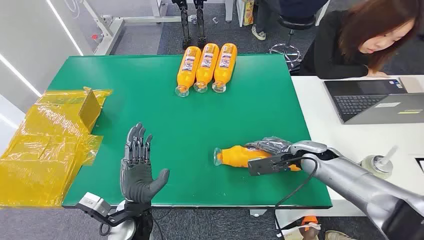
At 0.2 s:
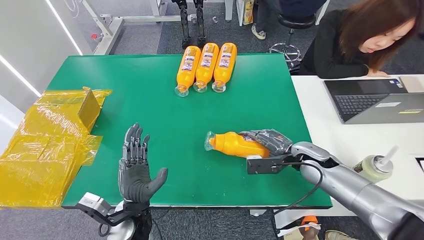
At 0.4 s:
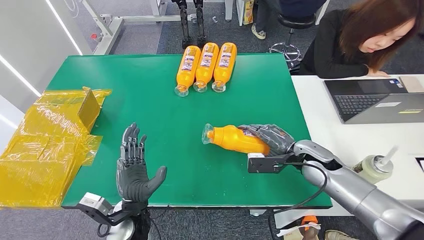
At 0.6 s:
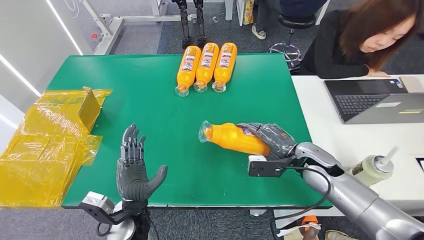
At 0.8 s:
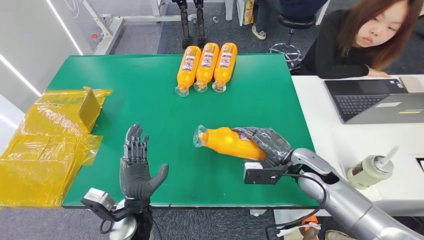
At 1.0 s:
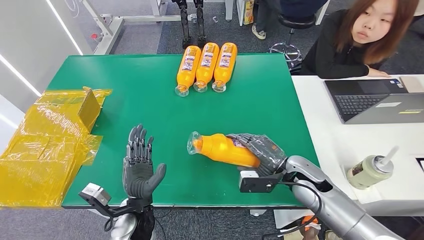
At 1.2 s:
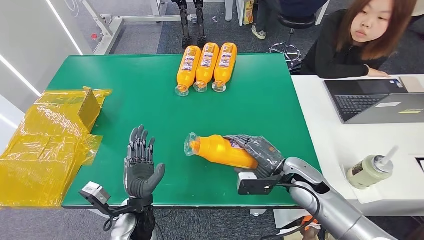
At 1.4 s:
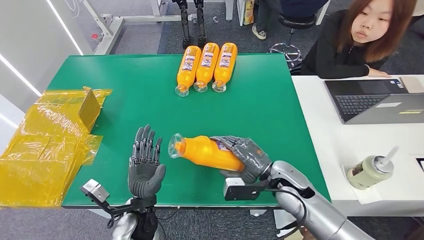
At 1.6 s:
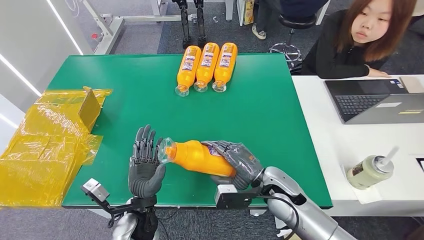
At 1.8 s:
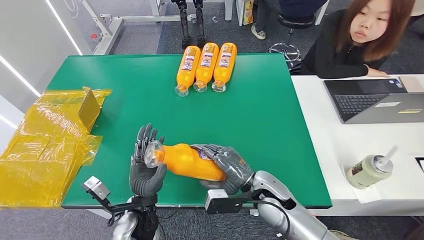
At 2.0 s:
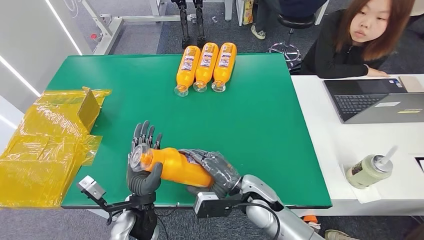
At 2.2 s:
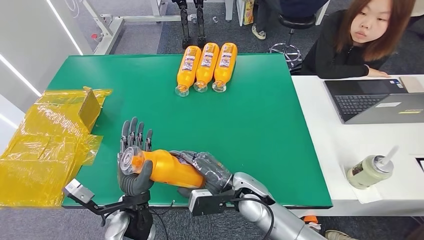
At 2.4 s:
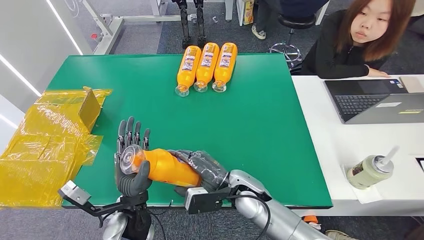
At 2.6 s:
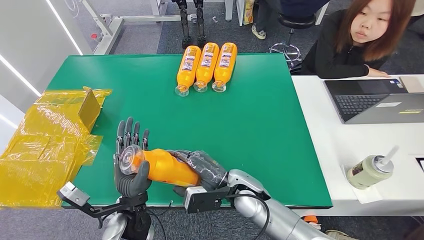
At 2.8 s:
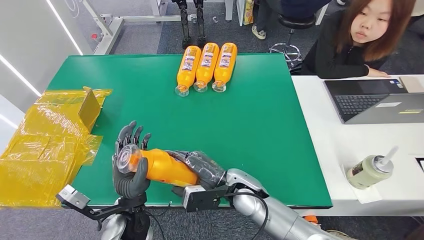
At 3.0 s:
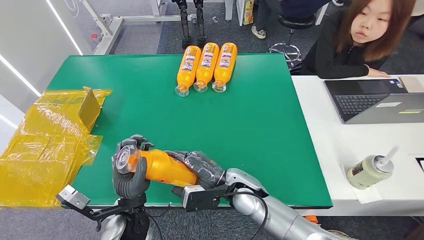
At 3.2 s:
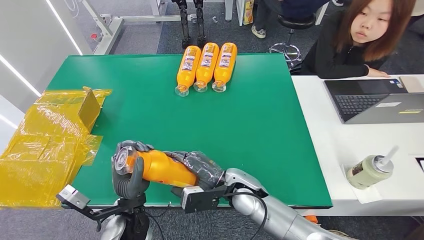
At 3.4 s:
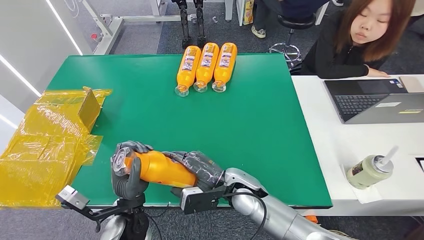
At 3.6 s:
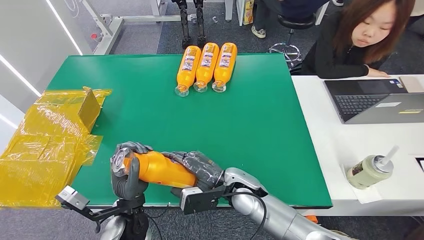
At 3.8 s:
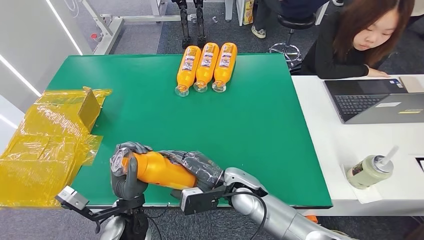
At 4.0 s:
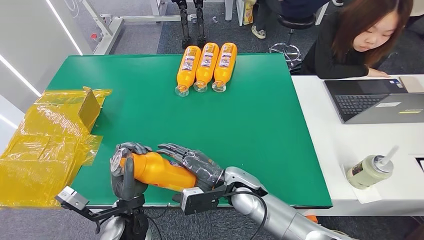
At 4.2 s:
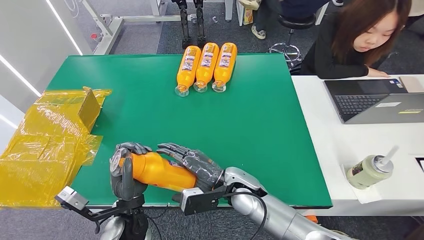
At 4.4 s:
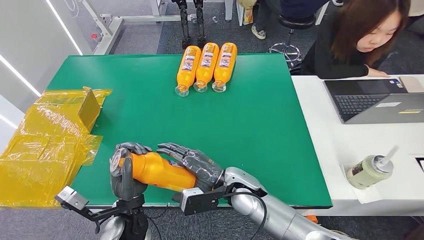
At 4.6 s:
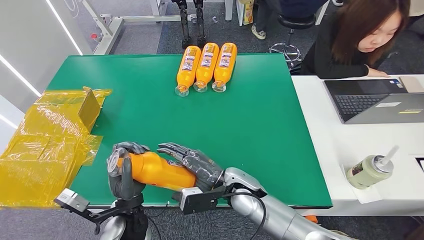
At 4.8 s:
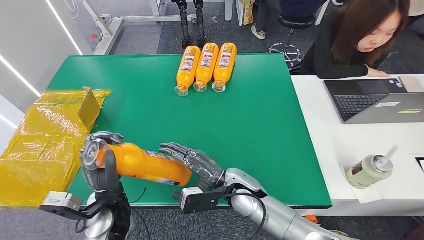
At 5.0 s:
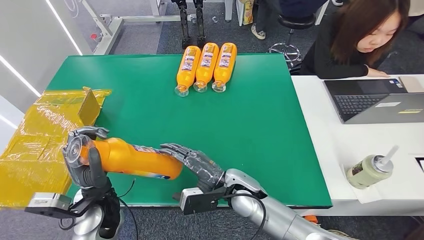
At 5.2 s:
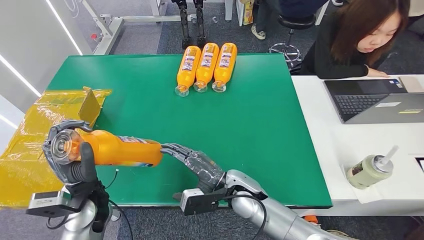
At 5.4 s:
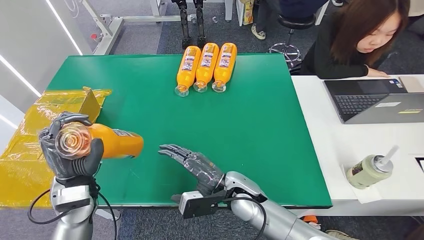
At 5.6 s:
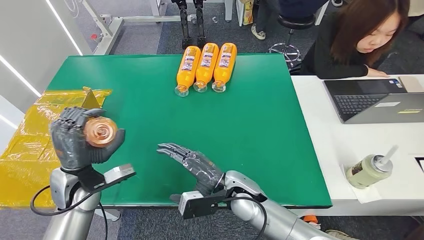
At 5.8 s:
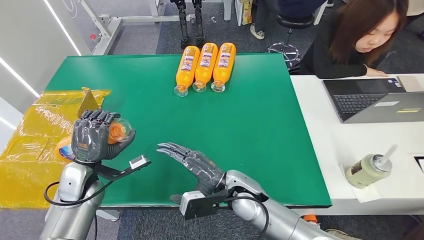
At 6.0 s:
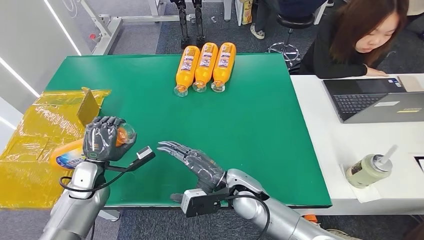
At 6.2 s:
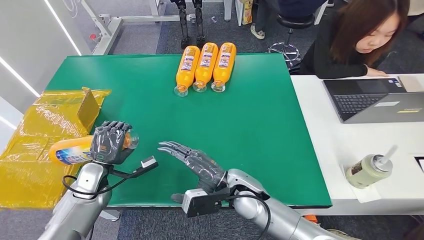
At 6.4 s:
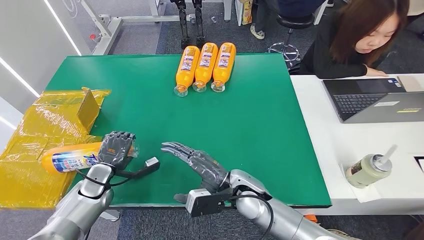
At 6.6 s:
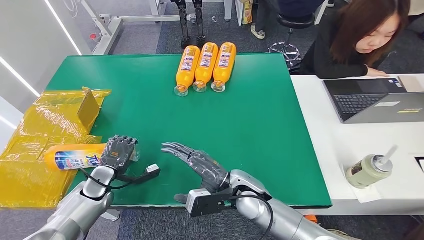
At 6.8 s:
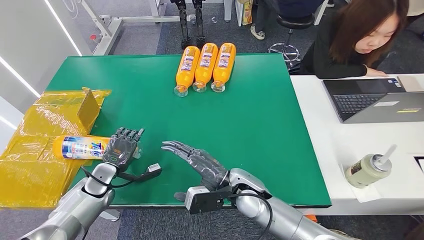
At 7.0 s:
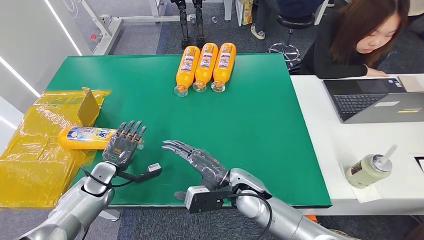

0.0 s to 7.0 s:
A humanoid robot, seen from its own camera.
Step, 0.0 to 2.2 s: Pick up the bottle from the table.
Step, 2.4 to 7.0 s: Turn the bottle to the front side.
1.4 to 2.8 s: The right hand moves to the left, some 10 cm.
2.8 to 4.2 s: Neither hand changes place.
4.2 to 5.6 s: The left hand heads to the left and forward, covering approximately 15 cm.
5.6 to 7.0 s: The left hand goes some 10 cm downward and to the left.

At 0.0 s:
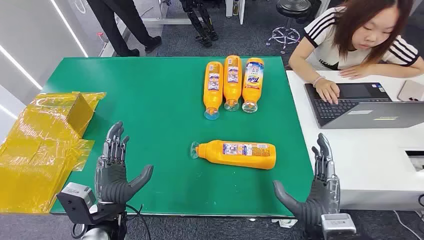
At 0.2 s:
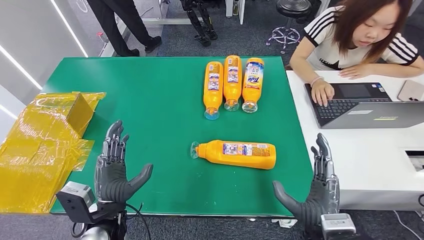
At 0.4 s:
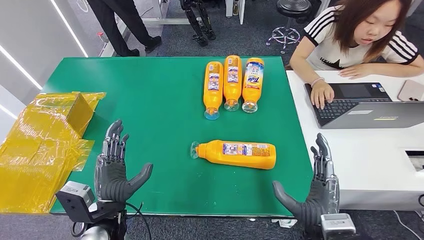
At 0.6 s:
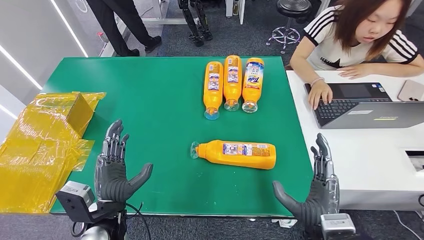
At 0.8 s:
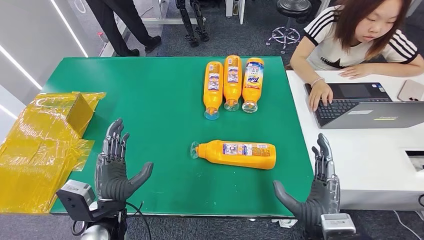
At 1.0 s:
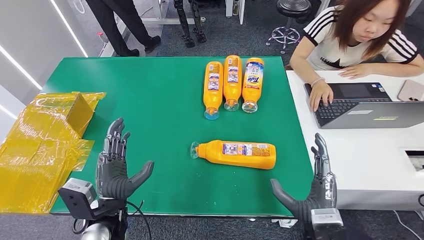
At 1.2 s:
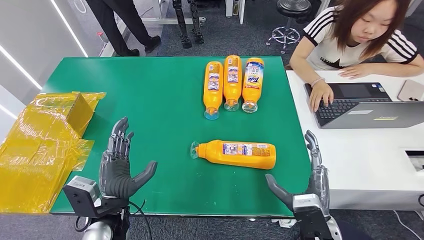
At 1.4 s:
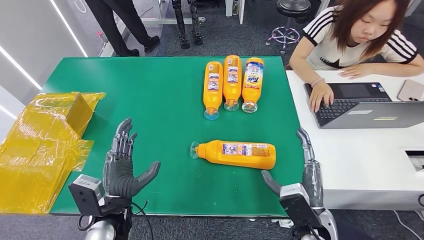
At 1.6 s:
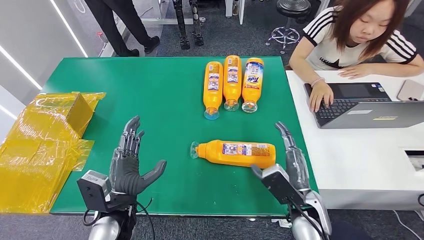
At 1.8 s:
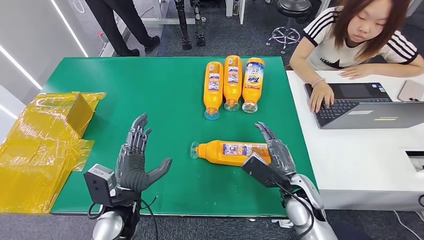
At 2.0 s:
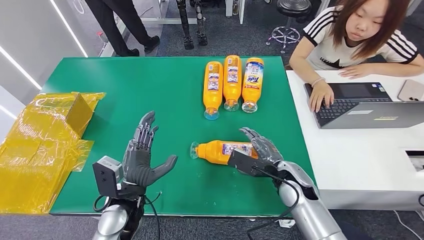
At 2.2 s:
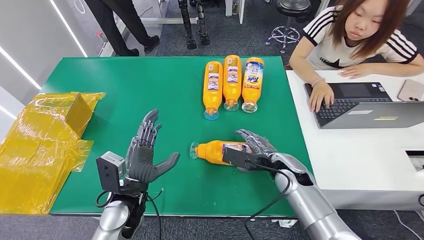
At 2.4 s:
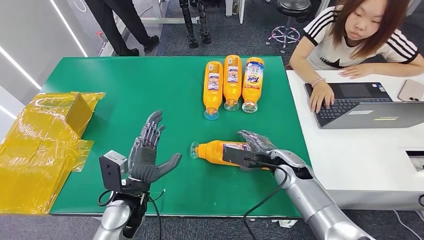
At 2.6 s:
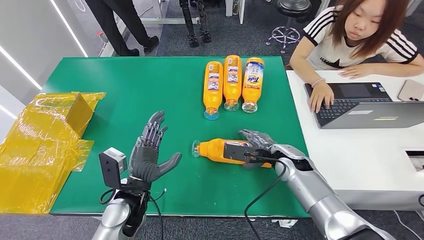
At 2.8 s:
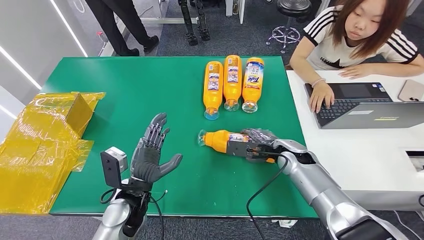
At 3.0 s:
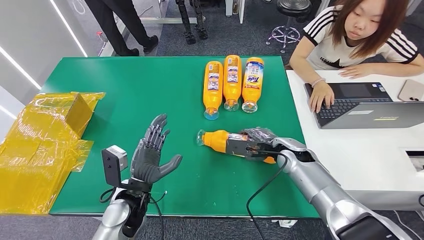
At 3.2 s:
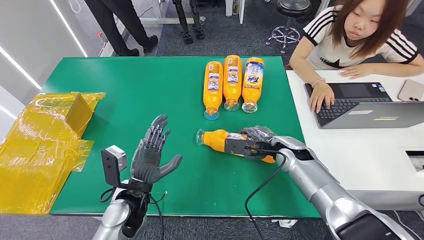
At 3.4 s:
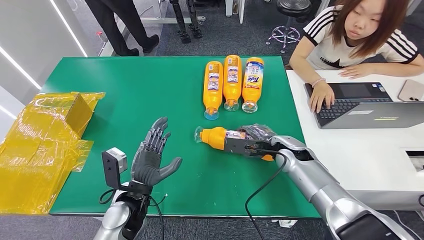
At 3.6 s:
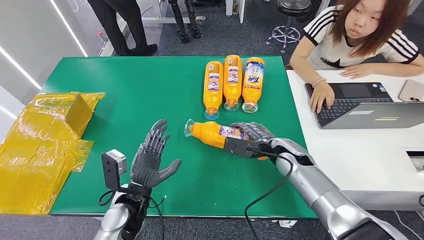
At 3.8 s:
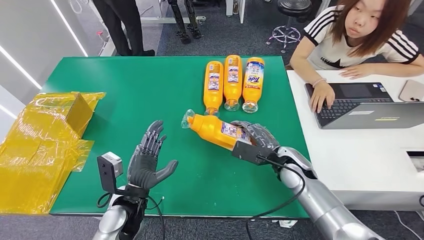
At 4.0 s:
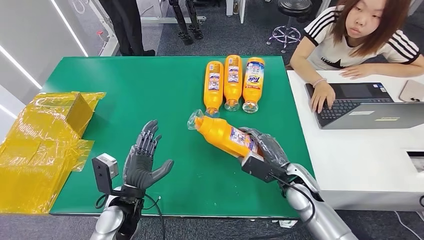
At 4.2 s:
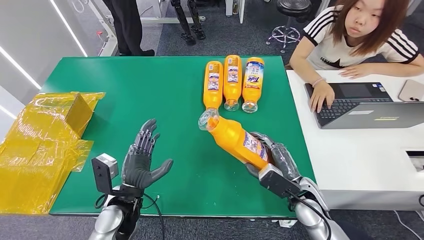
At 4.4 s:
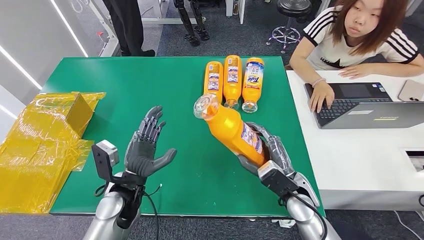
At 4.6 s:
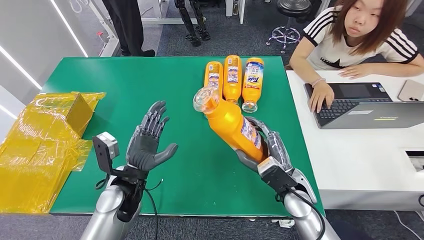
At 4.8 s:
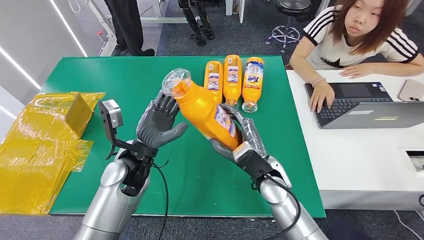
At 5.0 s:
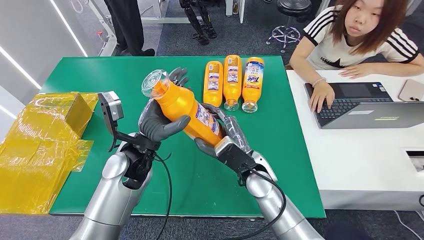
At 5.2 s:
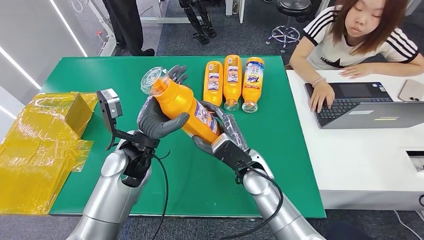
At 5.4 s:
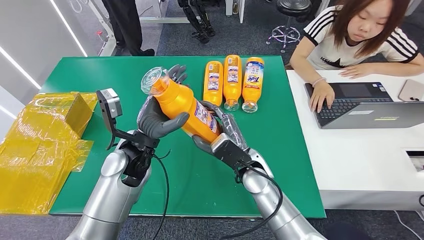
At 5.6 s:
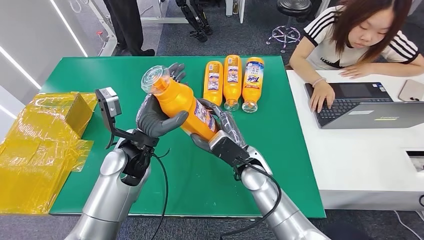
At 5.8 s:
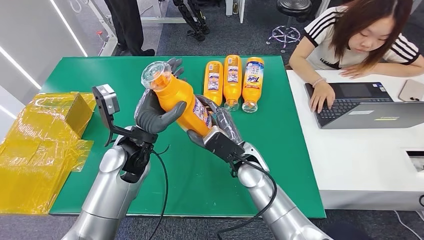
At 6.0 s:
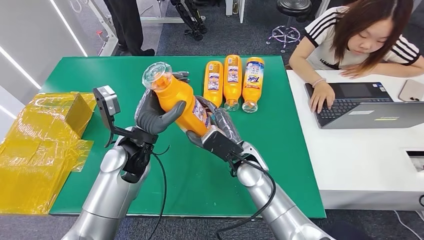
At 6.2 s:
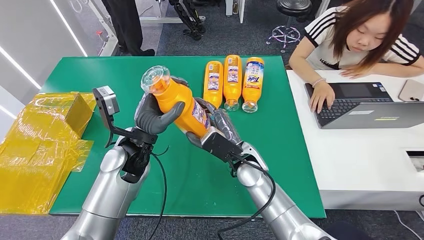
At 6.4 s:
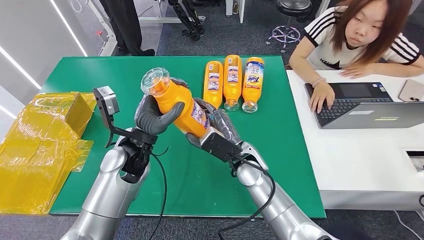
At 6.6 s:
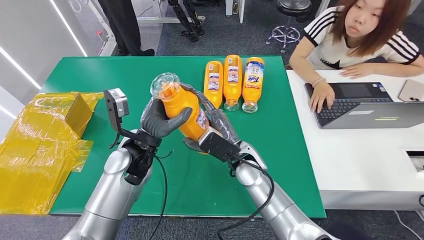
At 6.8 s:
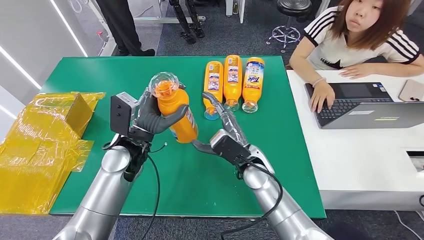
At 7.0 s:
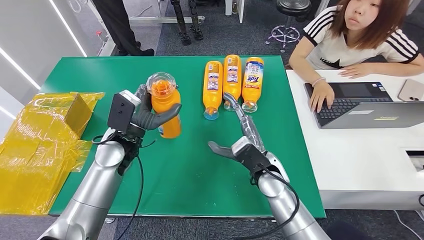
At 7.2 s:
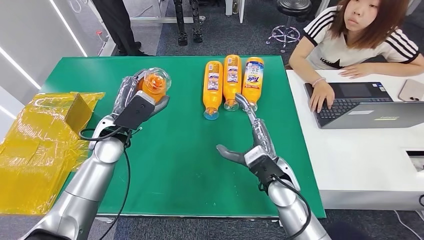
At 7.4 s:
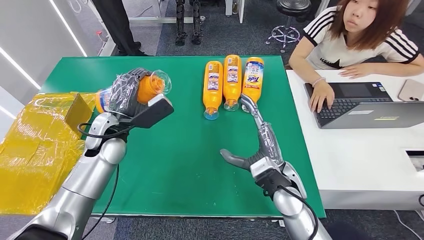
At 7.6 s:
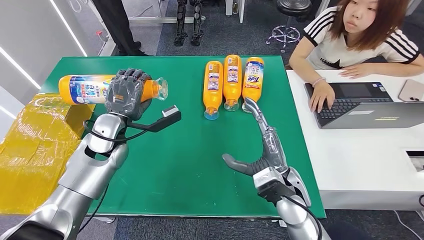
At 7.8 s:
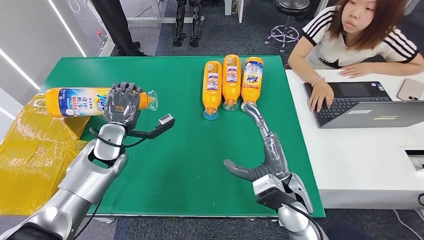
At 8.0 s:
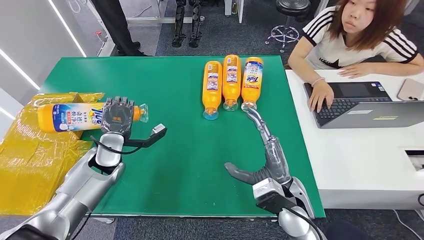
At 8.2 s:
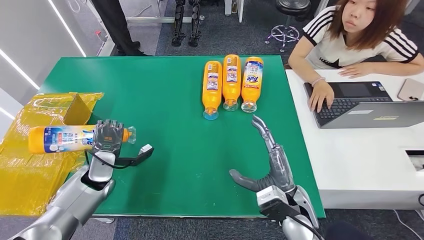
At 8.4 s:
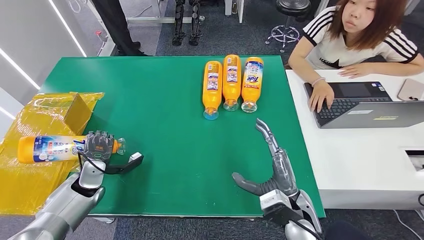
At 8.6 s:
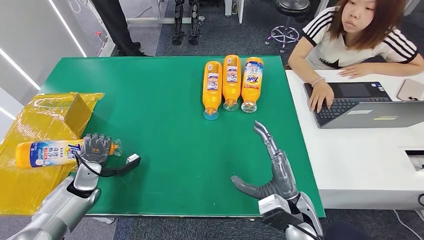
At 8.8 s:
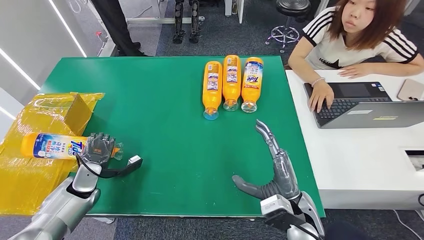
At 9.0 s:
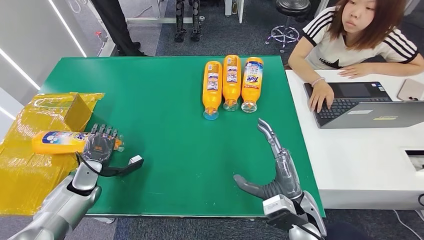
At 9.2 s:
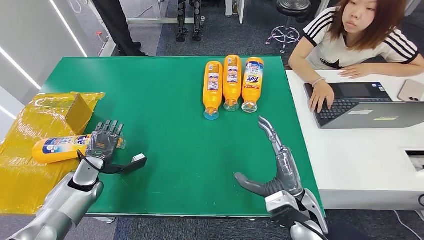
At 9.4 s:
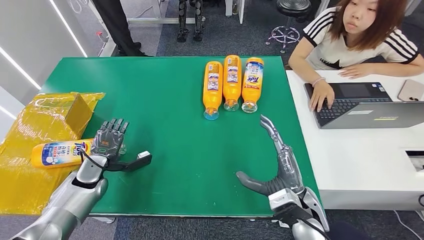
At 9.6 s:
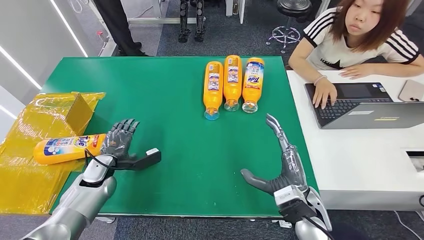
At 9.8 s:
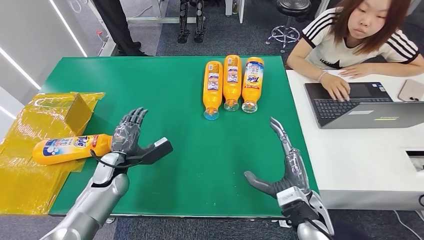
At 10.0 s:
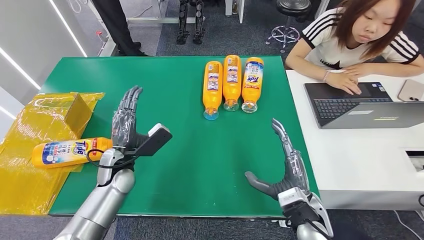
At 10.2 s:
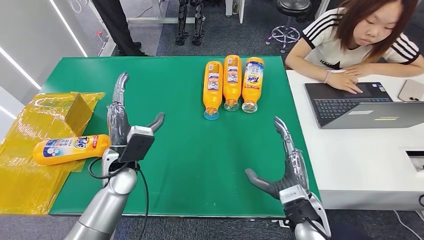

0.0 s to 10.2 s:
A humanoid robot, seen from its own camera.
Step, 0.0 to 4.4 s: Pick up the bottle from the table.
Step, 4.6 to 10.2 s: Turn the bottle to the front side.
1.4 to 3.0 s: The right hand goes about 20 cm forward.
3.0 to 4.4 s: The right hand goes approximately 10 cm backward.
7.2 to 8.8 s: The right hand travels backward by roughly 10 cm, while the left hand travels downward and to the left by roughly 20 cm.
